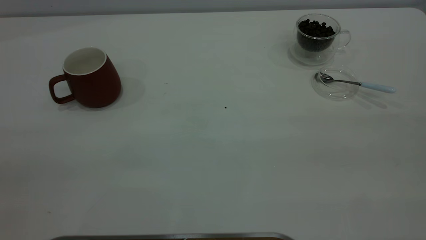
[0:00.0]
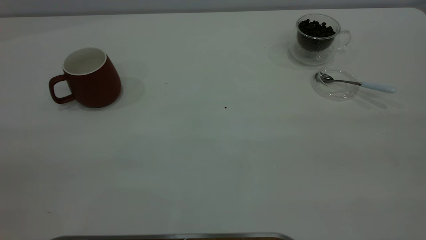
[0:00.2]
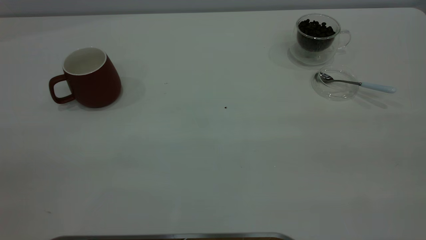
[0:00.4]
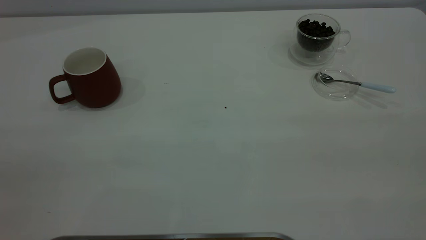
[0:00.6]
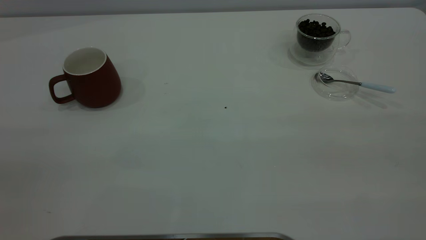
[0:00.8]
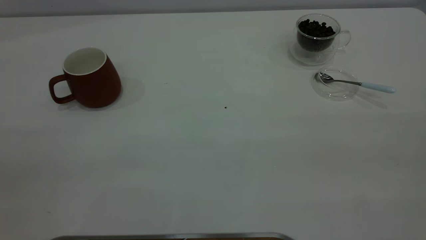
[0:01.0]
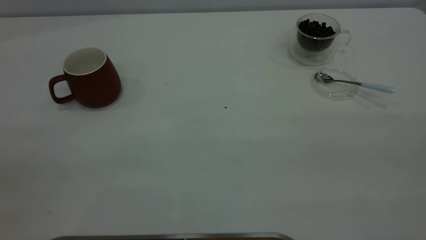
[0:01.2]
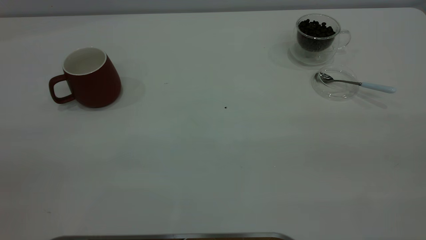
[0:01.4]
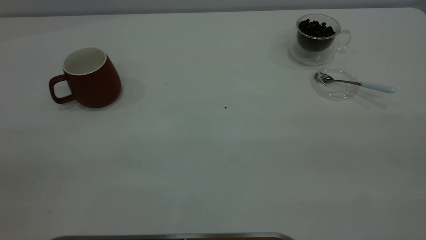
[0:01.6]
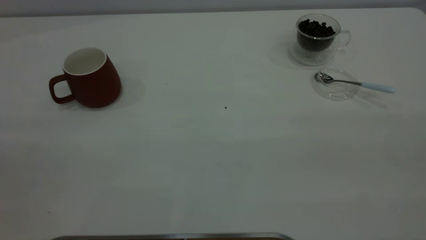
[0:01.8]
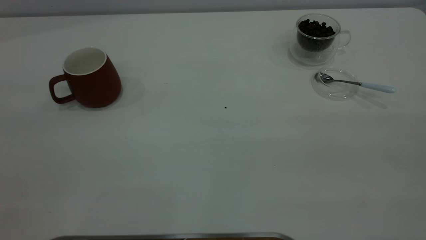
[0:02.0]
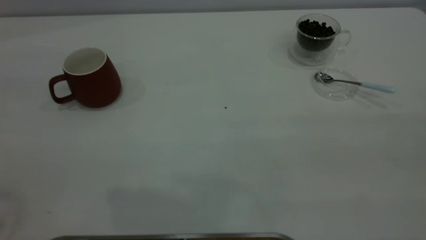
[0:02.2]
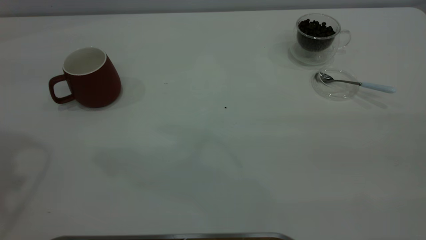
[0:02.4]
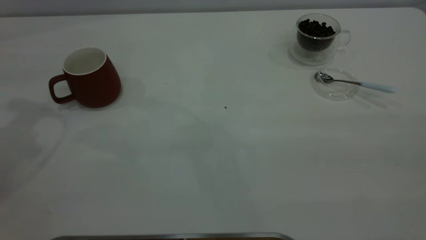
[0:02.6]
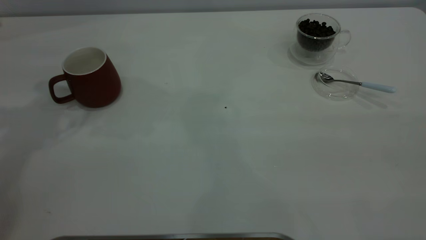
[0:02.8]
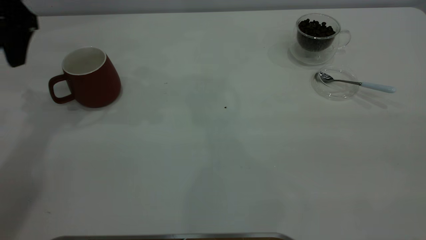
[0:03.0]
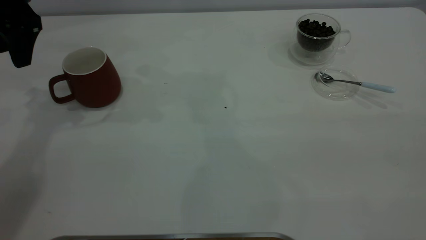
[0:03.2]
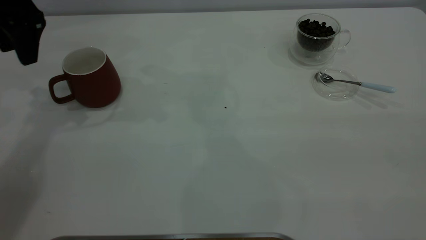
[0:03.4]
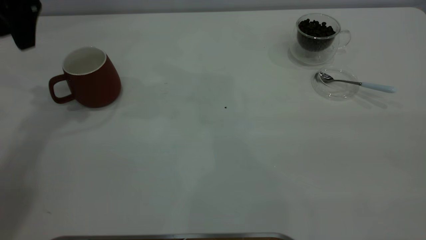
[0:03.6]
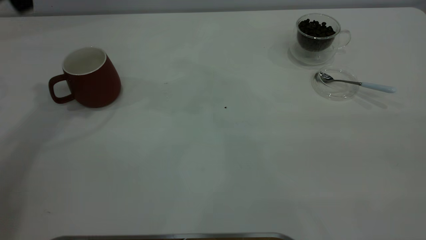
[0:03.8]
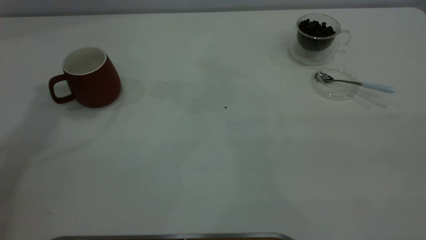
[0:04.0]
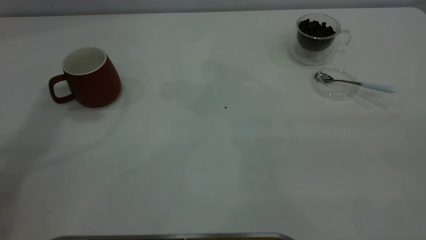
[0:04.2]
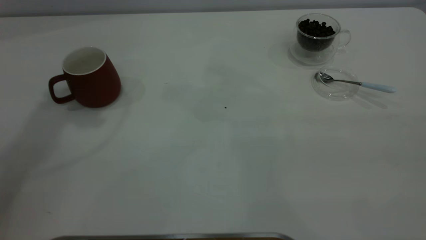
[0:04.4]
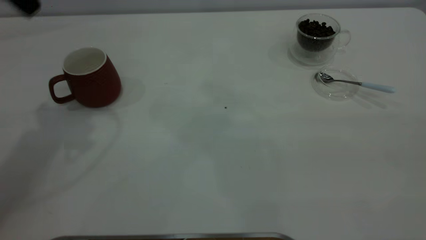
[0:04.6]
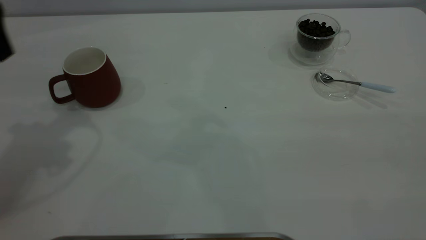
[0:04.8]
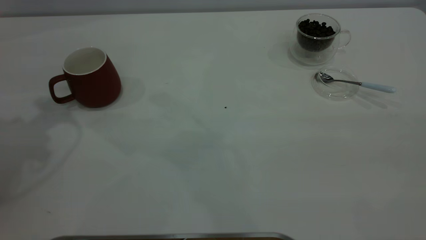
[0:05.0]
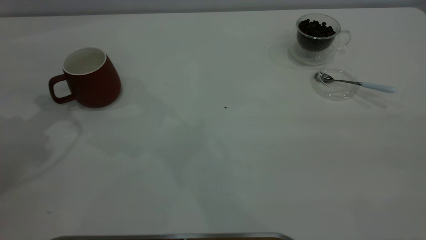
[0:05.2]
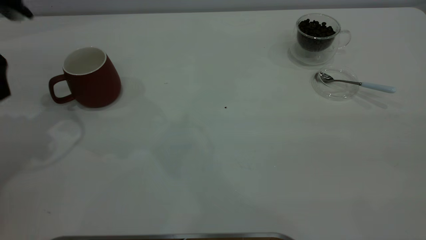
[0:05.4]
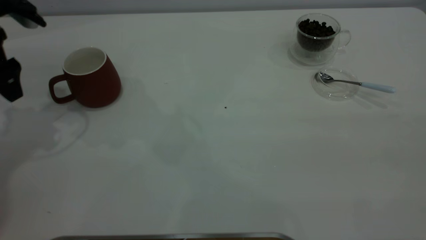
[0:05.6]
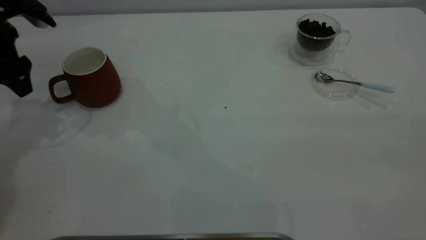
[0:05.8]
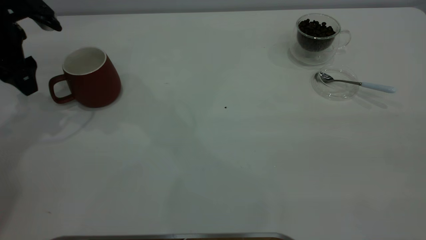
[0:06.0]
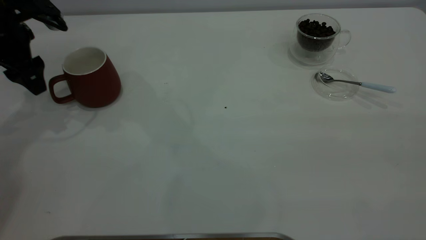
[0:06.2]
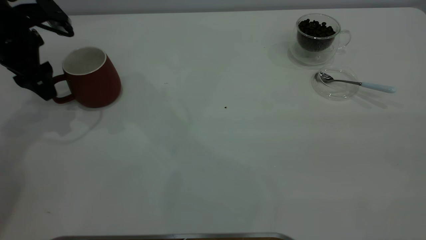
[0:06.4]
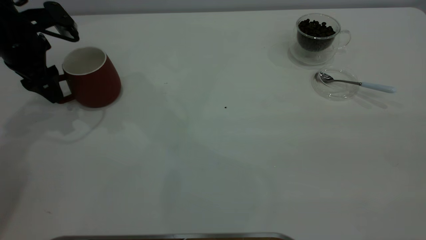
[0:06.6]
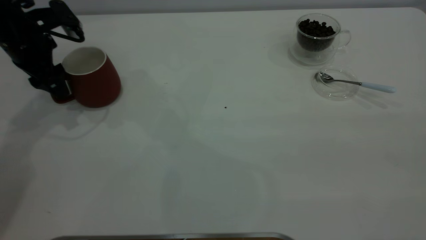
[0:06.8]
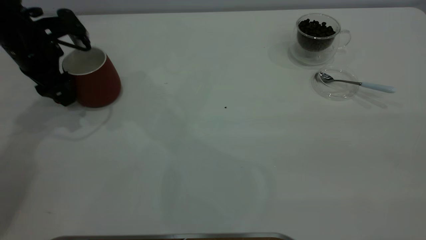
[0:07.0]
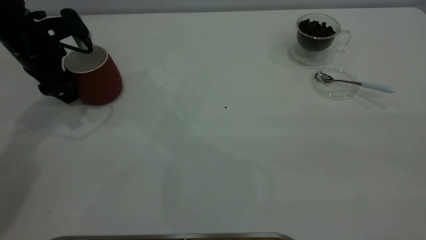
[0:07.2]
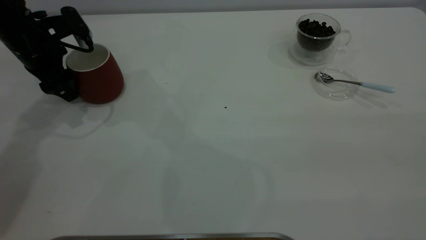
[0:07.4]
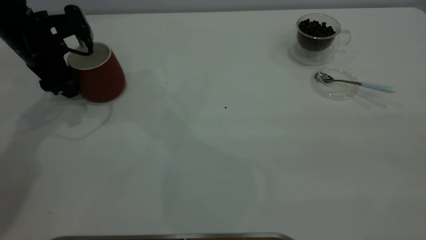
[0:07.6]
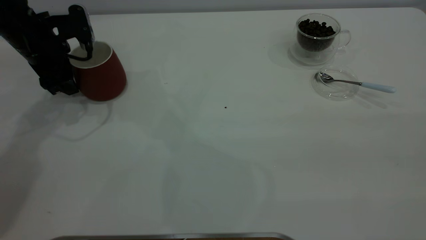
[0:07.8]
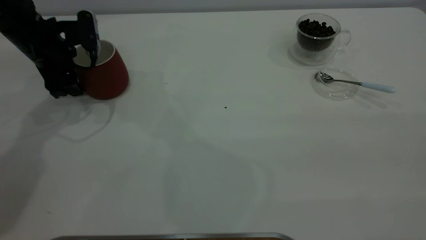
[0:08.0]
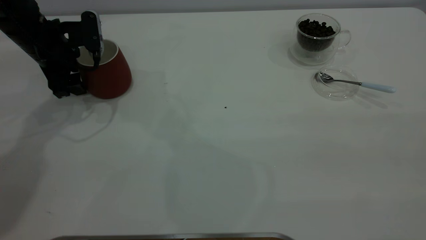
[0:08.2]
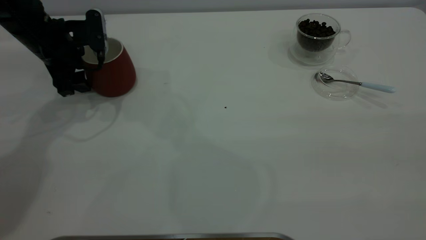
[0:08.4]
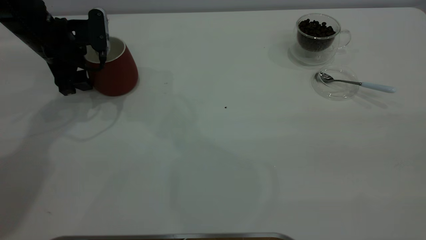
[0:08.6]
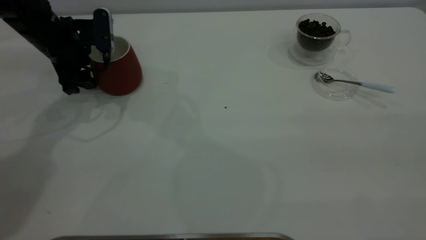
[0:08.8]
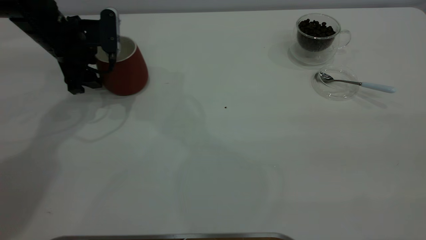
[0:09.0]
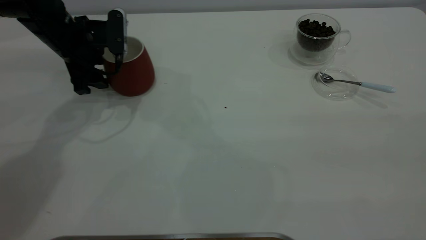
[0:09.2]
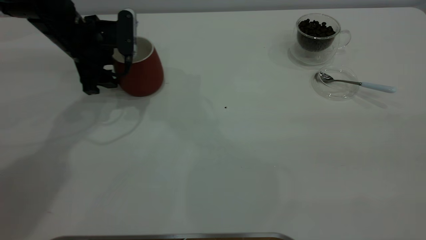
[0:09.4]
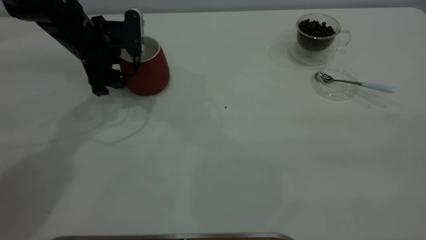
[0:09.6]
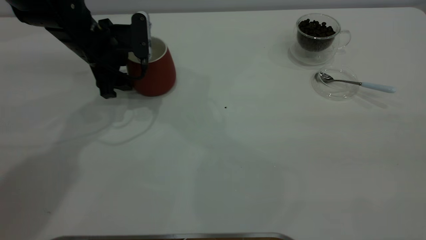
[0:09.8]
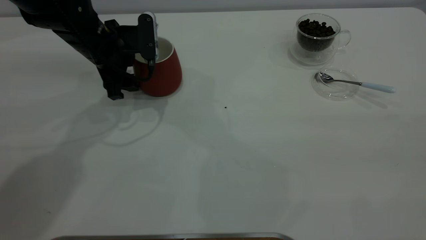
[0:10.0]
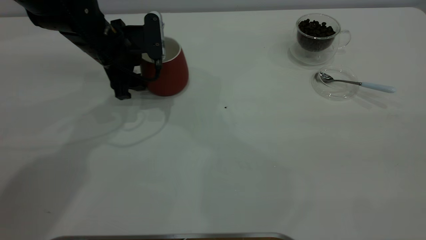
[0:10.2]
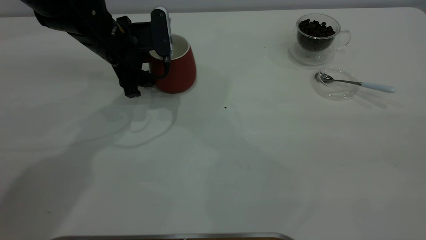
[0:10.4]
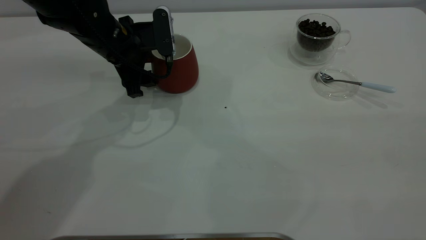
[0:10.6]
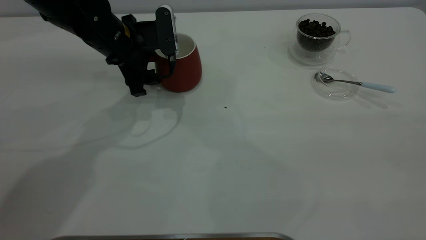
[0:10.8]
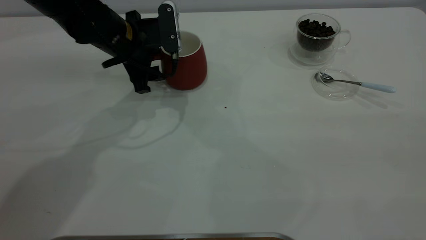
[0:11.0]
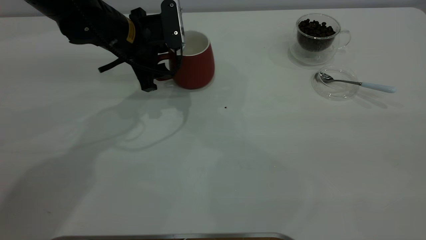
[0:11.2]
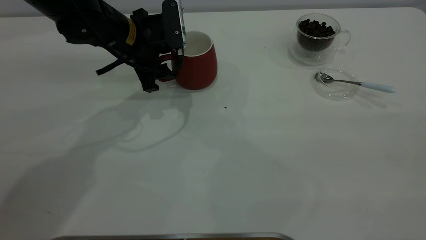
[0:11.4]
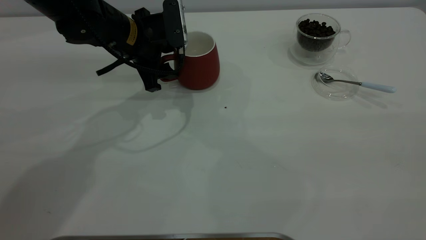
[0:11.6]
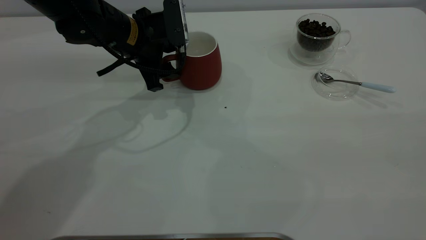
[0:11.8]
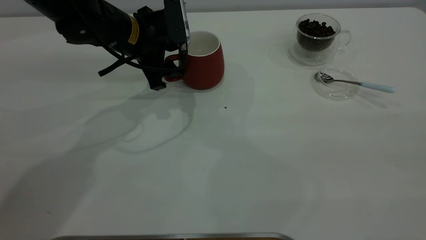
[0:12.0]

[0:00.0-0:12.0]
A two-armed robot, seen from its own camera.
Task of the whole recording: the left gripper place the red cup in the center of the table, the right gripper take the blue spoon from the cup lid and scoop out the coffee beans from the coffee cup and put them into the red cup, the right gripper put the spoon back into the cup lid.
0:00.0 to 0:01.6: Neither gripper changes place.
0:01.6 to 0:03.0: The left gripper travels forward by roughly 40 cm, and opens.
0:03.0 to 0:04.4: The left gripper heads upward, covering roughly 10 cm.
0:04.4 to 0:06.0: The left gripper moves downward, approximately 20 cm.
0:06.0 to 0:07.6: The left gripper ends up about 5 cm from where it was.
0:09.0 to 0:10.4: The left gripper goes some 10 cm to the right.
0:10.4 to 0:12.0: The grippers stay close to where they were, moving slightly.

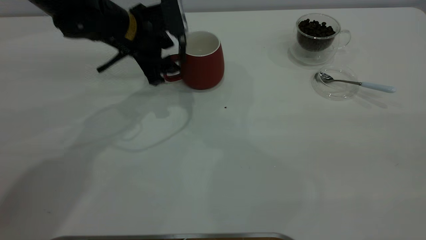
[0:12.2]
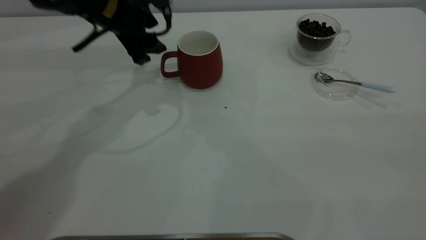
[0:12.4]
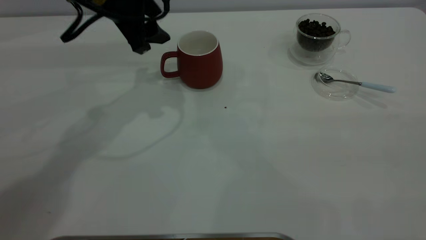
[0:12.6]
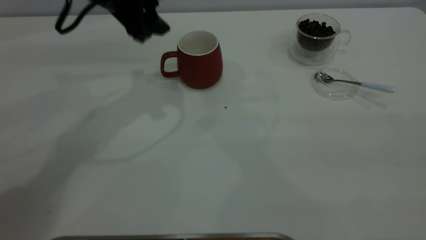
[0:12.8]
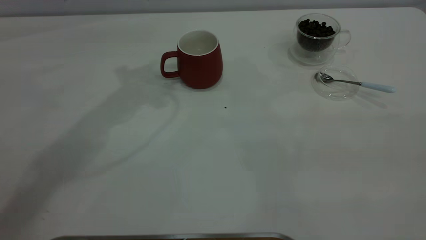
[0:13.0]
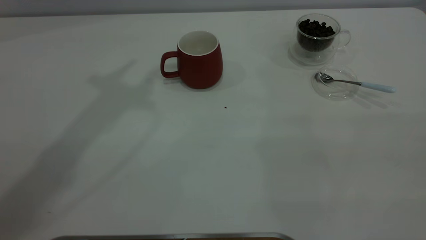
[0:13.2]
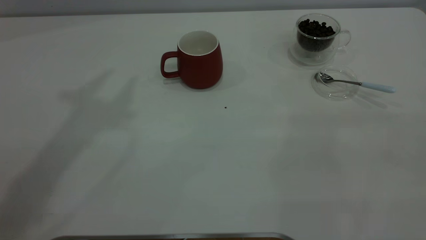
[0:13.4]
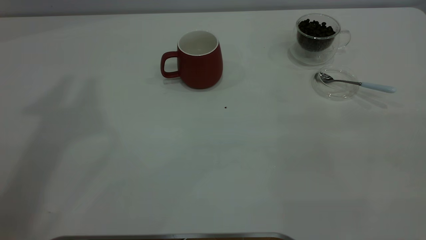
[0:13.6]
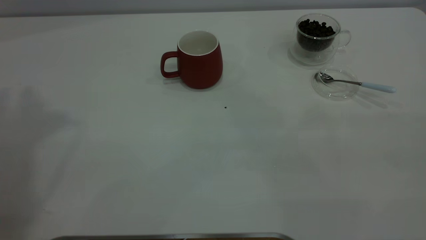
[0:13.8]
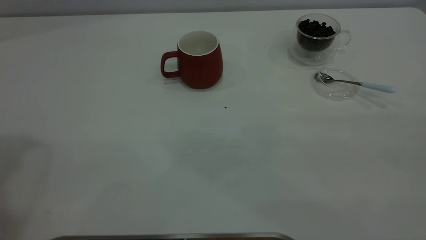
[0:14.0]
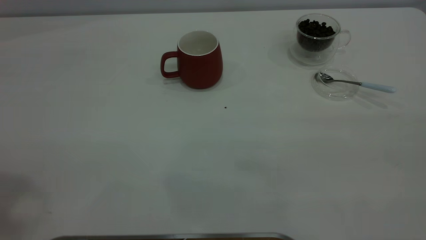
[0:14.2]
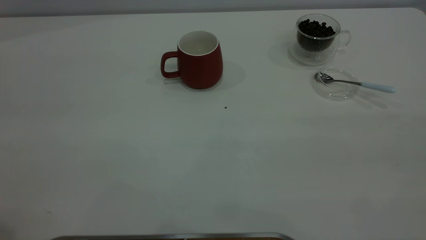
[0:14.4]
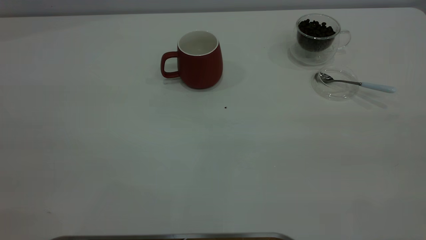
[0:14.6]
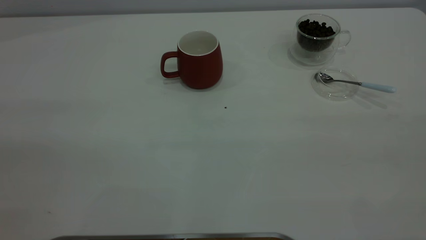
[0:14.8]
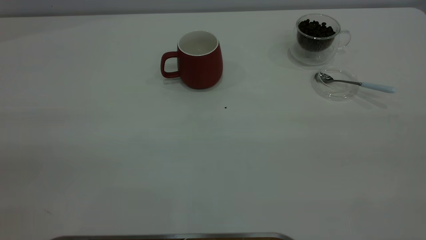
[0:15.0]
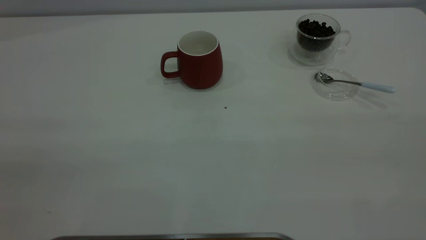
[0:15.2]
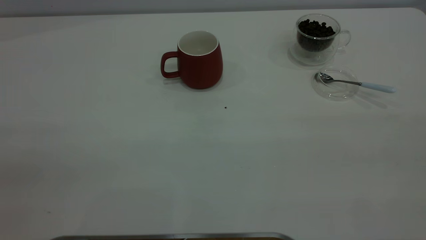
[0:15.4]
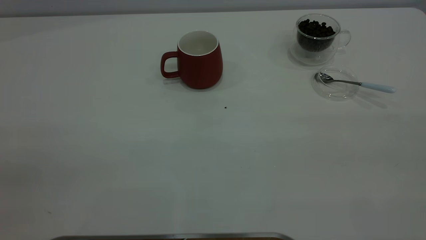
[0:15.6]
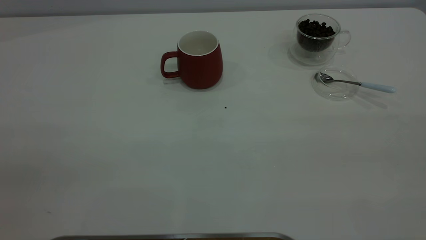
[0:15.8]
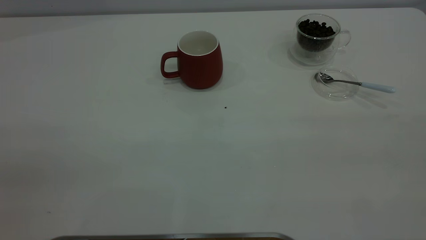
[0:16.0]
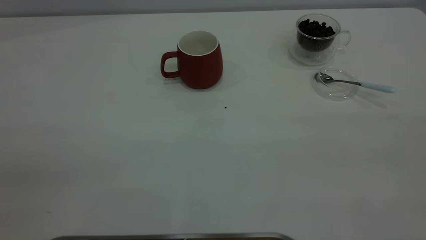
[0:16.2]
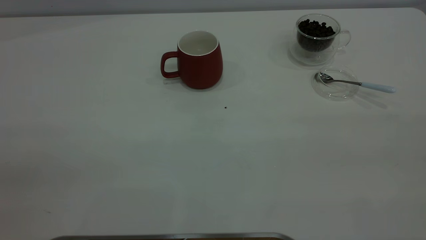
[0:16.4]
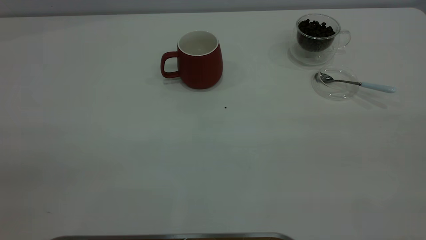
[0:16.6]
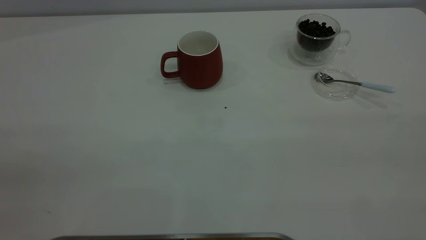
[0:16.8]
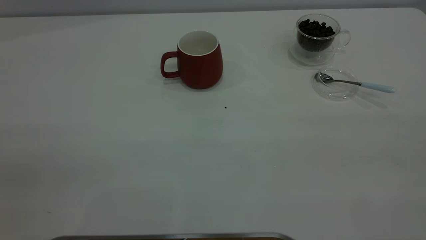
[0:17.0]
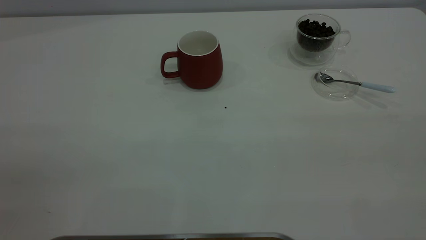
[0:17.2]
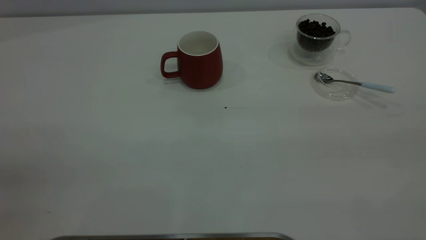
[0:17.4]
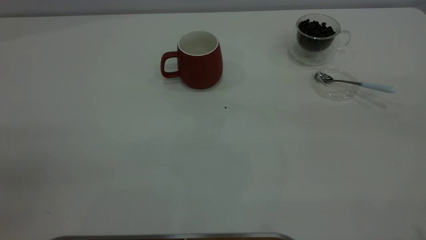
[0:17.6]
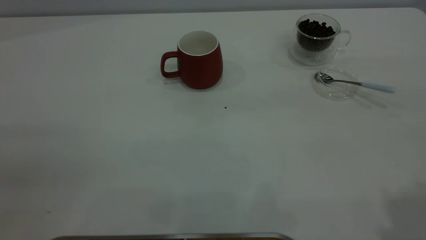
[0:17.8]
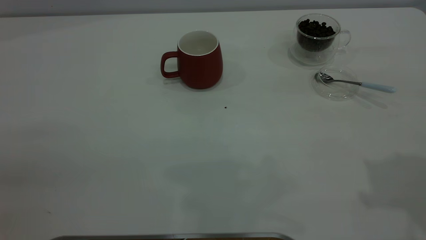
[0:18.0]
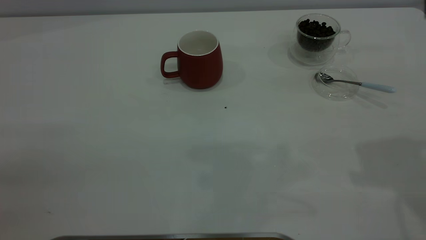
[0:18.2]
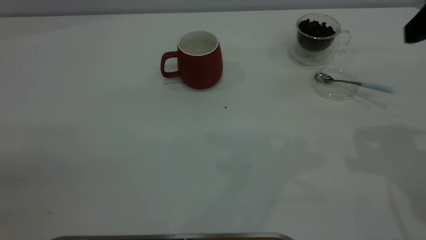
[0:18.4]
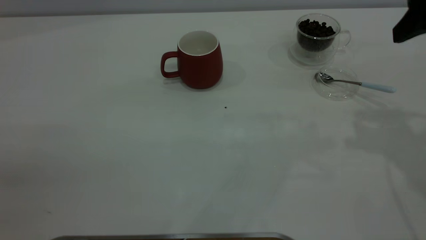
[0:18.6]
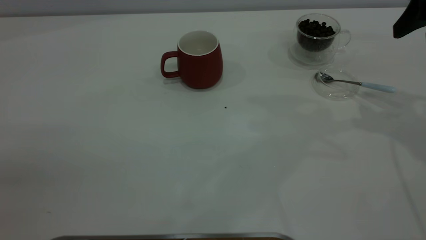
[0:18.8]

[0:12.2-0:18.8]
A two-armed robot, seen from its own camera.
Task of the whole recording: the left gripper place the red cup in the center of the table, the right gripper take the blue spoon from the cup lid and scoop out the coffee beans from the coffee cup and put them into the red cup, the right gripper put the spoon back into the cup lid.
0:12.2 to 0:13.8: The left gripper heads upward, covering about 40 cm, and closes up.
0:15.4 to 0:17.2: Both grippers stay put.
0:17.2 to 0:18.8: The right gripper heads forward, covering approximately 35 cm, and opens its fingers.
